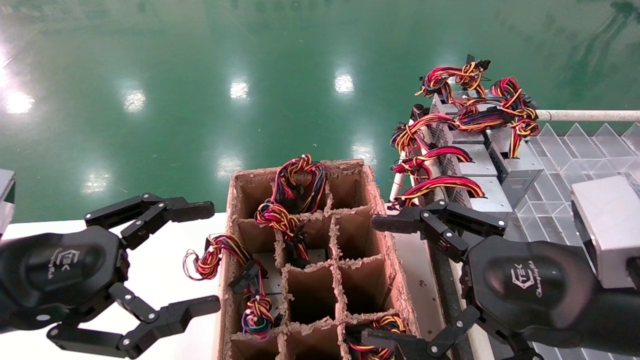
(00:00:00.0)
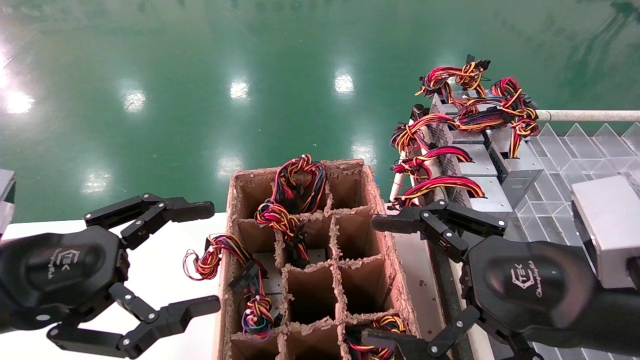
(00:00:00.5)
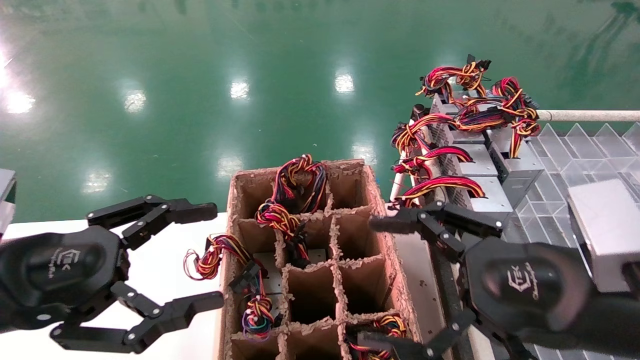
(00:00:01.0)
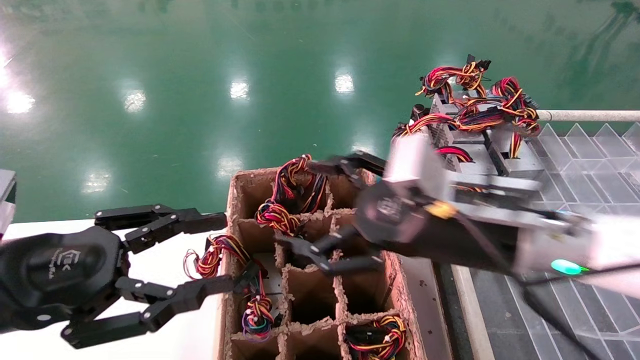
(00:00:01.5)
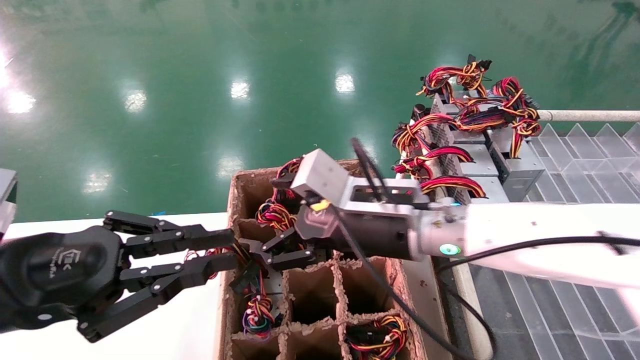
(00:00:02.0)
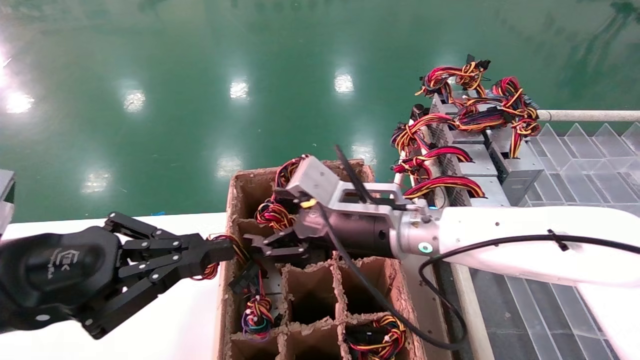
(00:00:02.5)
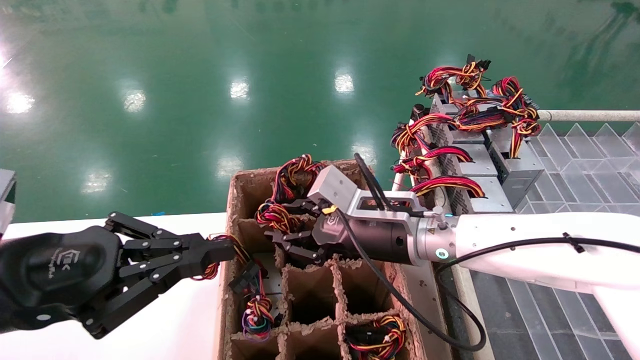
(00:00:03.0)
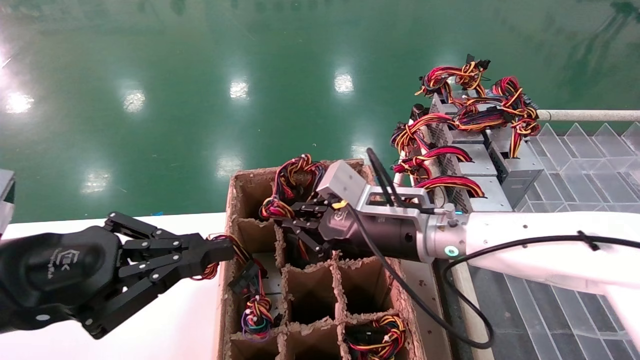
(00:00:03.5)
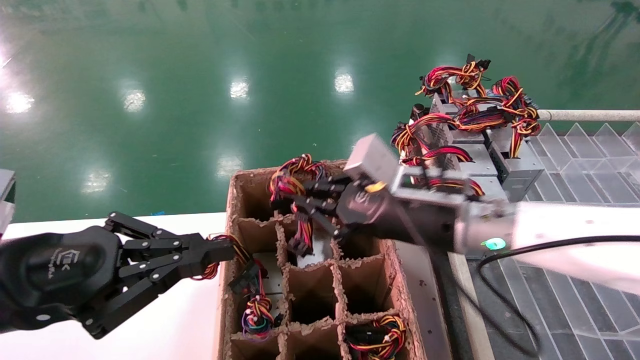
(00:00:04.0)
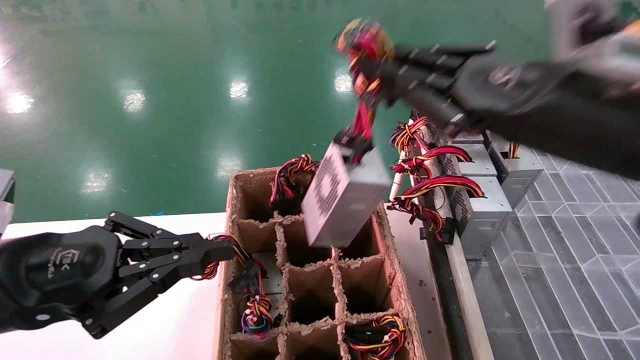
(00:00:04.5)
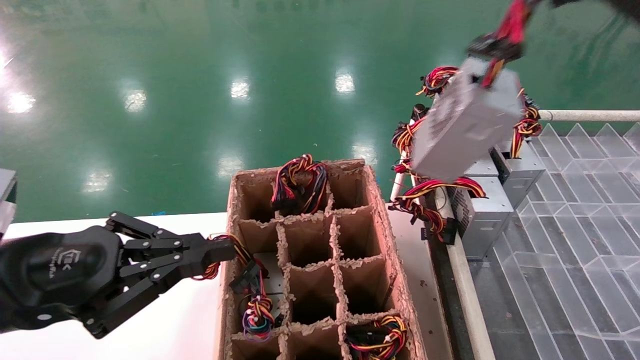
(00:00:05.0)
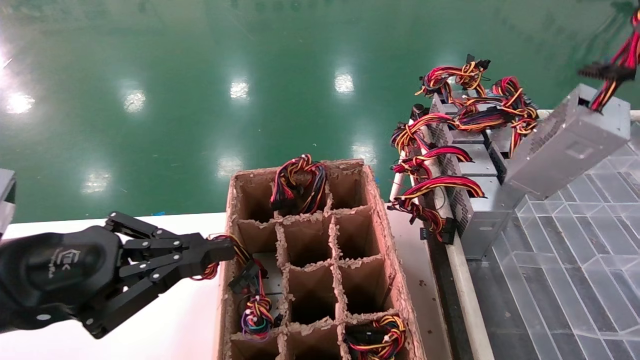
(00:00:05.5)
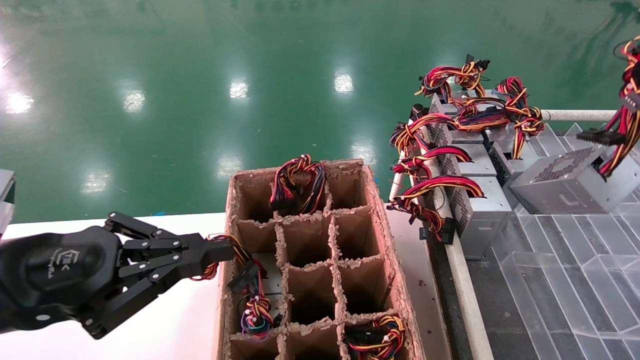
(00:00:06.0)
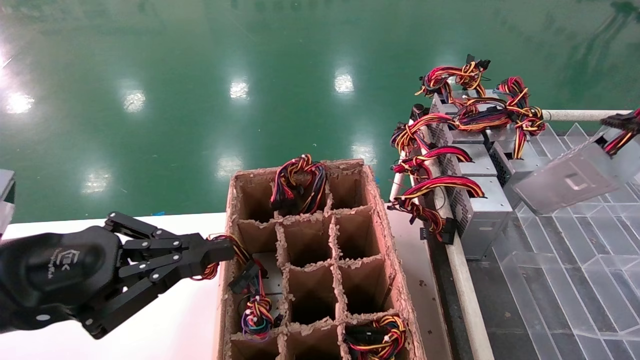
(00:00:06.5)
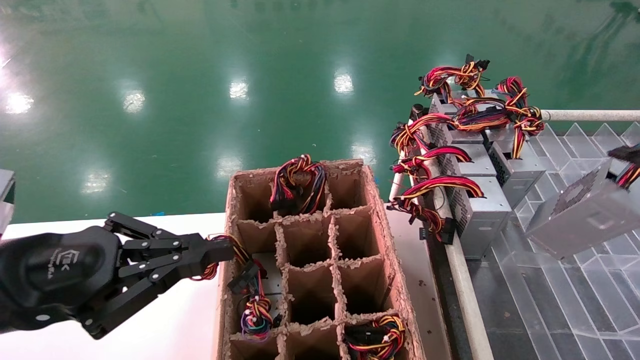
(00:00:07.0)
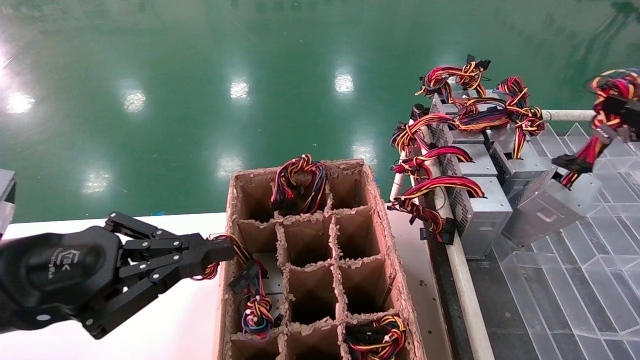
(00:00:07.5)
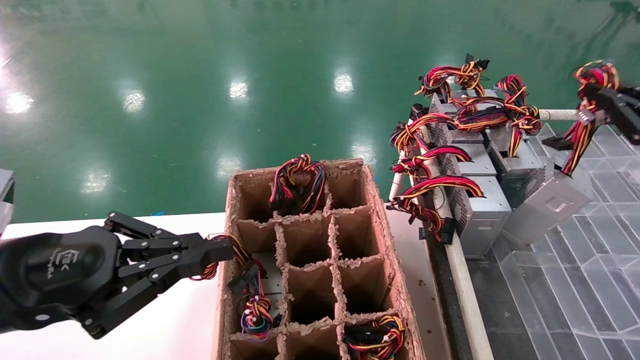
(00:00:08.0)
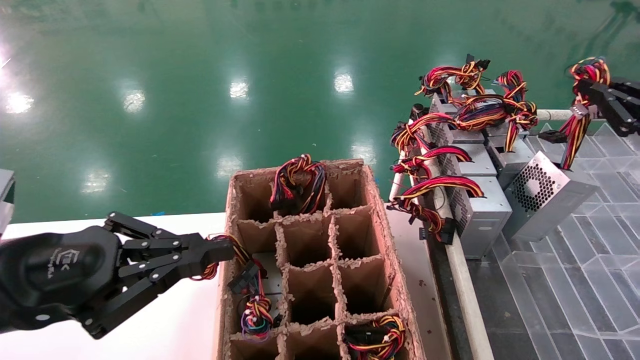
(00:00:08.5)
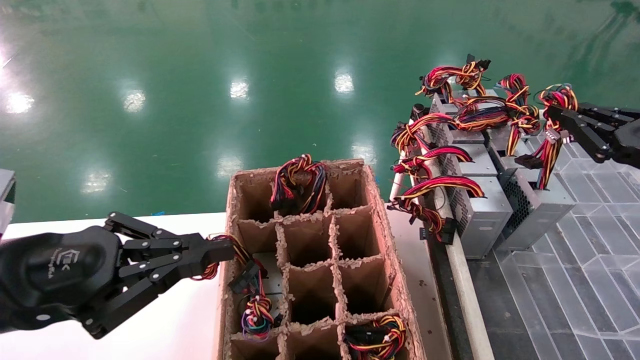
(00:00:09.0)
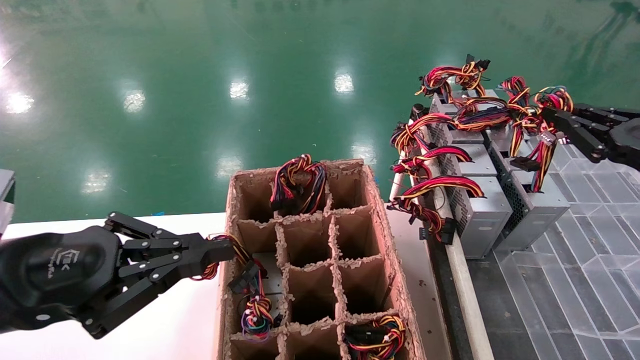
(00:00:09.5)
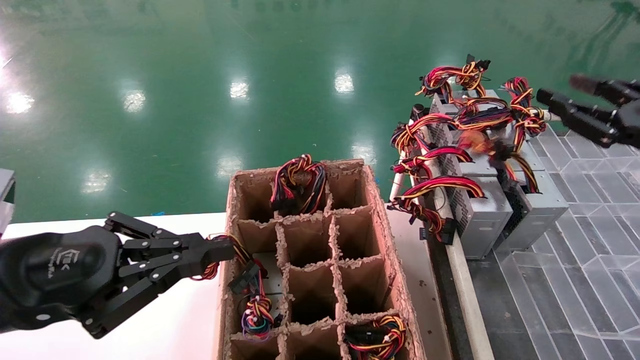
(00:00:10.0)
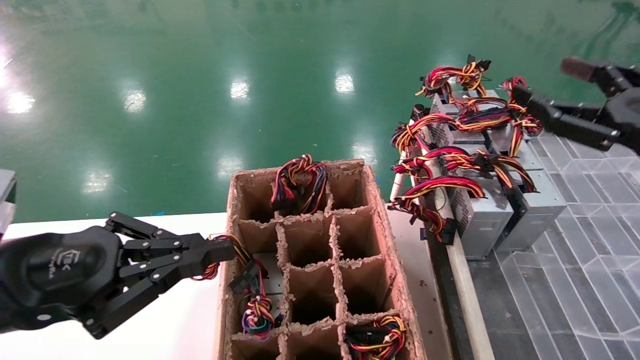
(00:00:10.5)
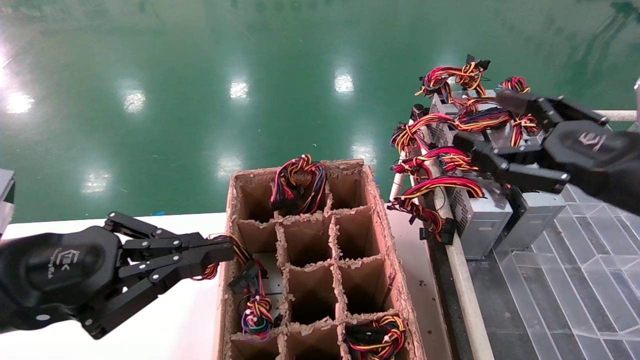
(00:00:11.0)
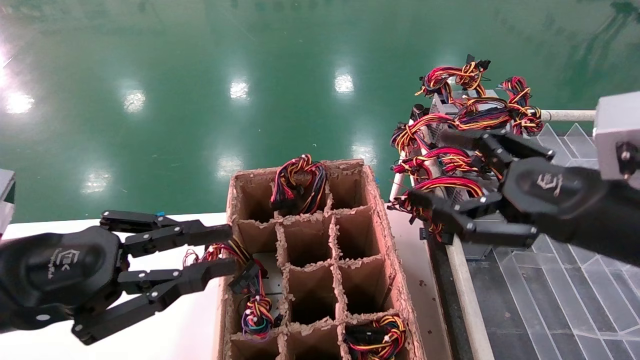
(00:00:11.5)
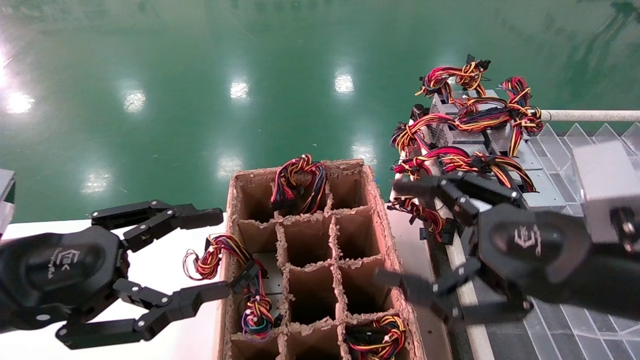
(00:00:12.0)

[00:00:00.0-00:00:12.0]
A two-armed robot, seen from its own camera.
Step, 00:00:01.5 to 00:00:03.5: Grab the main unit power supply from the containment box.
Step, 00:00:04.0 to 00:00:10.0: Place the main unit power supply in the designated area.
00:00:00.0 to 00:00:02.0: The left gripper closes its fingers; the right gripper shifts about 20 cm to the left and forward.
00:00:02.0 to 00:00:04.0: The right gripper heads to the right, covering some 5 cm, and closes its fingers.
00:00:04.0 to 00:00:06.0: The right gripper goes roughly 35 cm to the right and backward.
00:00:06.0 to 00:00:08.0: The right gripper heads forward, covering roughly 5 cm.
00:00:08.0 to 00:00:10.0: The grippers stay close to where they were, moving slightly.
00:00:10.0 to 00:00:12.0: The left gripper opens up. Meanwhile the right gripper moves to the left and downward, some 15 cm, and opens.

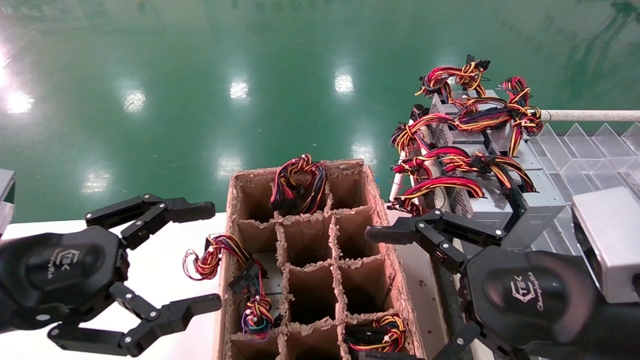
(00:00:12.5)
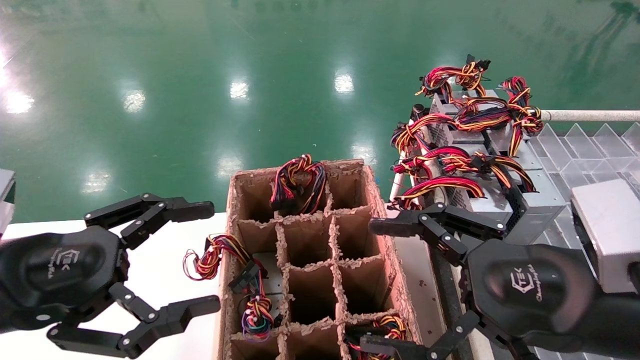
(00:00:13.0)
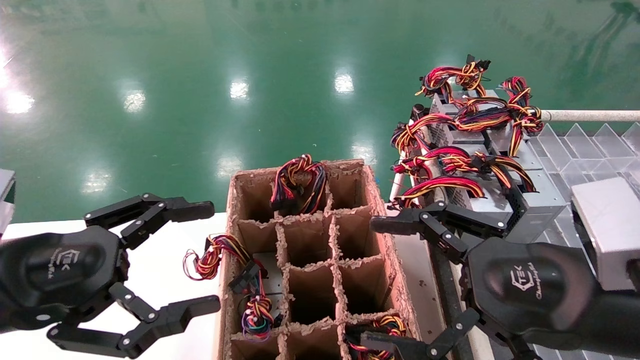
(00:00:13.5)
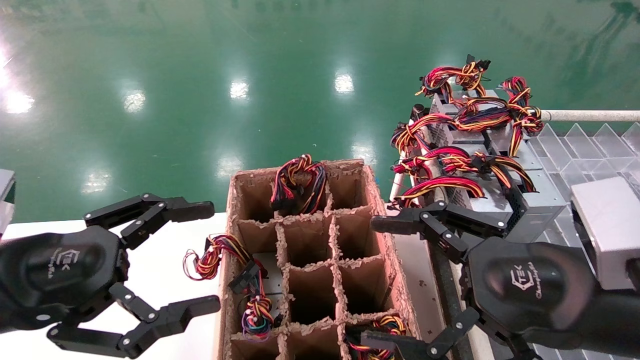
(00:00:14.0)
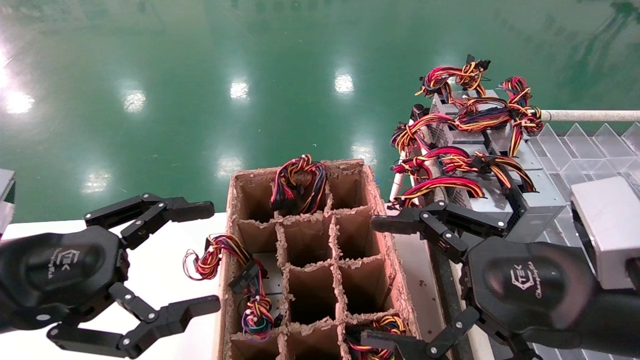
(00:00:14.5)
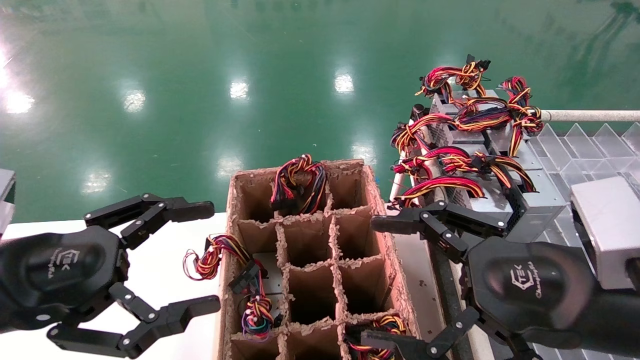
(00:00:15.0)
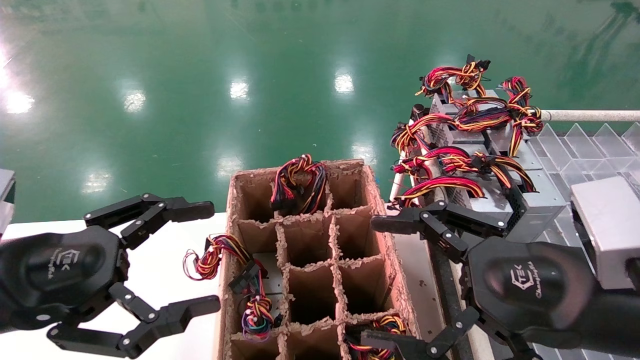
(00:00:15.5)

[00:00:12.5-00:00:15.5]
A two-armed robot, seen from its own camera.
00:00:12.5 to 00:00:15.5: Neither gripper changes place.
